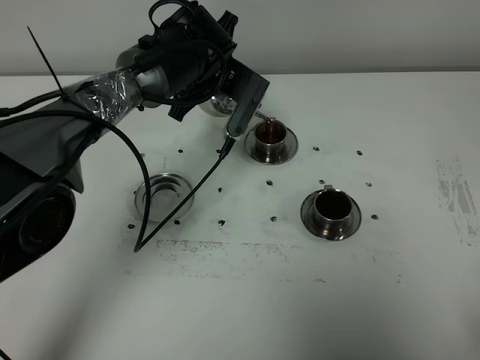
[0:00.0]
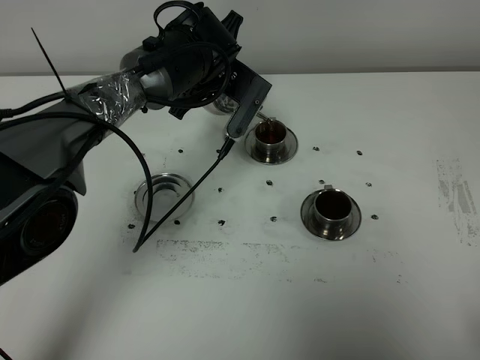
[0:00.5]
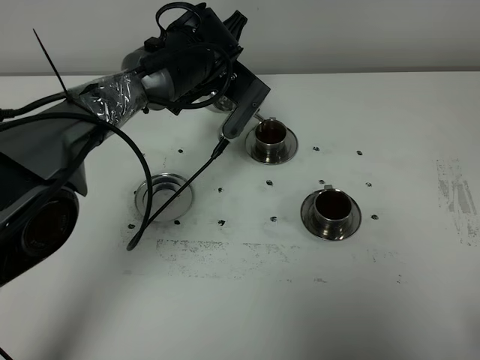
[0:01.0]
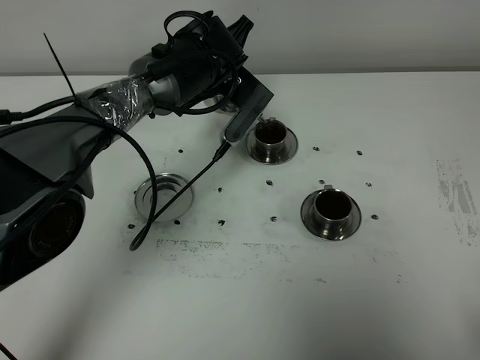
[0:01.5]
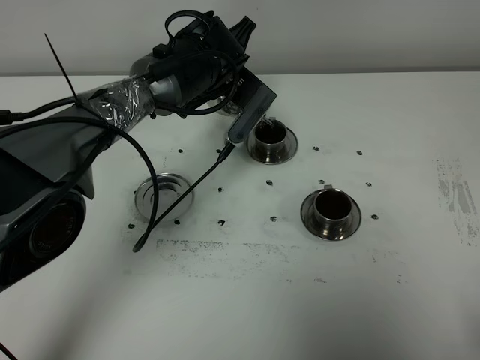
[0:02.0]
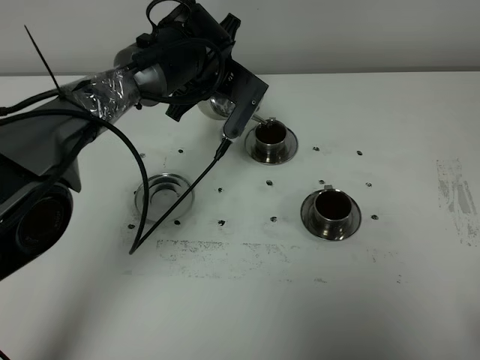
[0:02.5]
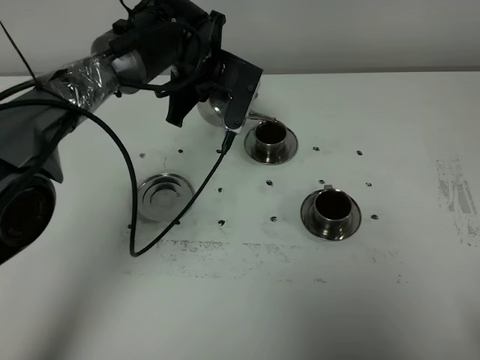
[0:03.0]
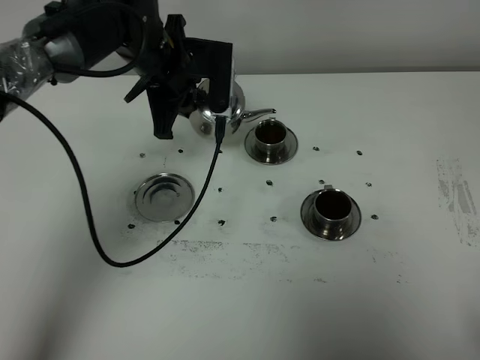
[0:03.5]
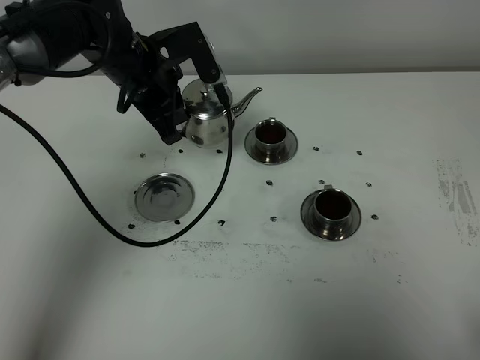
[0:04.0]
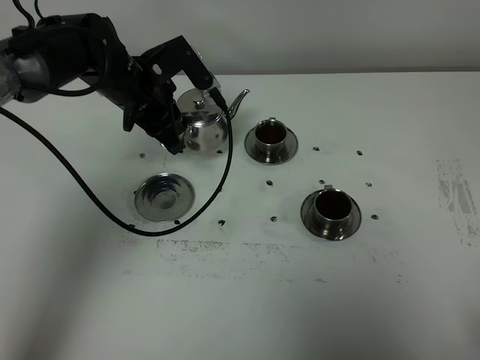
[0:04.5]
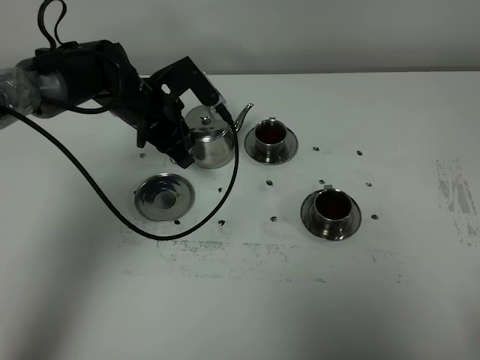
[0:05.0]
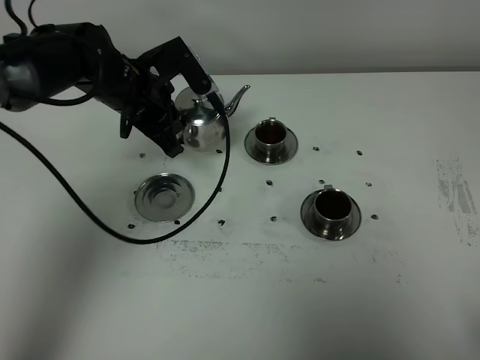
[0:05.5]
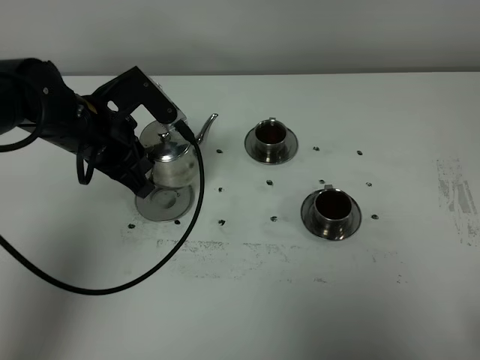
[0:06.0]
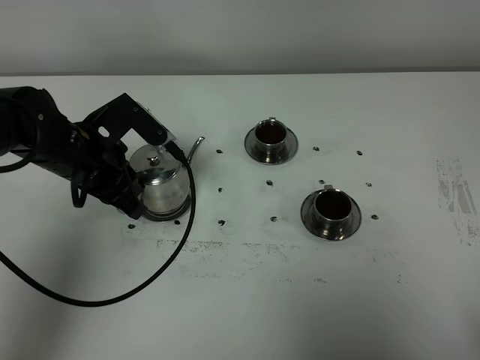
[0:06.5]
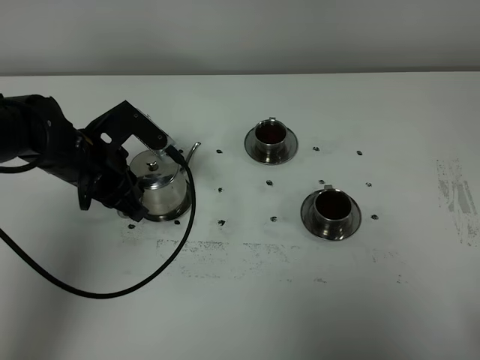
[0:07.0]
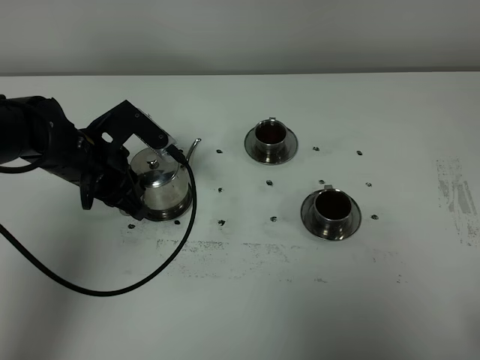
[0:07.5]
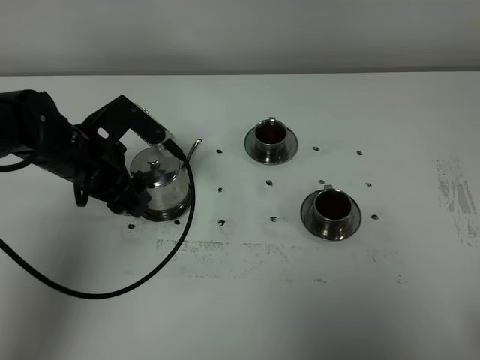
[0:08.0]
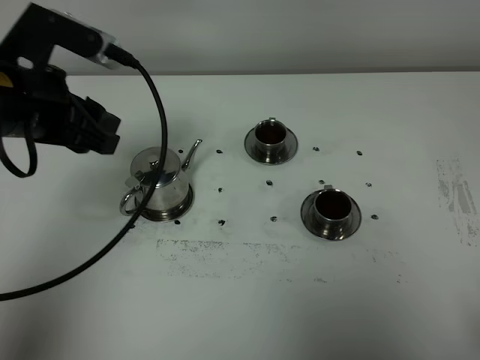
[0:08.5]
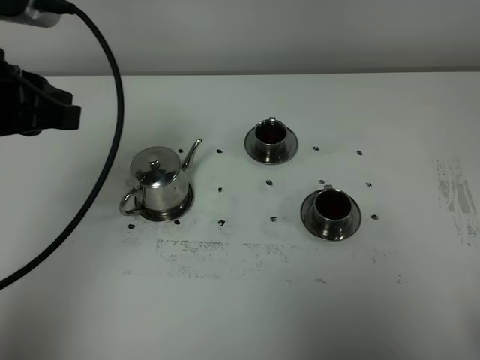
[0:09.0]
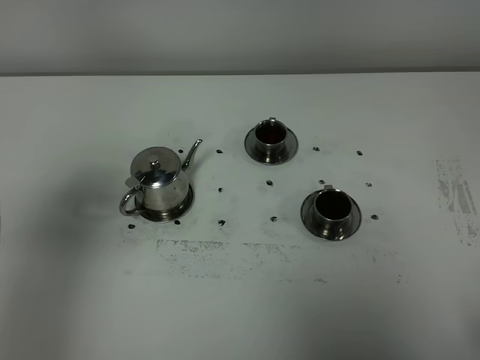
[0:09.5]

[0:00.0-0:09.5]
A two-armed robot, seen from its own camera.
Task of the whole recording: grasp the stainless steel teapot and pour the tea into the two stainless steel teacups one by one, put the stainless steel teapot back in its original place.
Step, 0:00.0 to 0:03.0: Pour tea into the teacup with the left gripper.
0:00.0 to 0:02.0: The grippers make only small movements.
0:02.0 to 0:04.0: The left gripper goes about 10 cm to the left.
0:05.5 to 0:07.5: The left gripper goes approximately 5 cm backward.
0:07.5 to 0:09.5: The left gripper shifts roughly 35 cm upward, backward and to the left, and opens, then closes again.

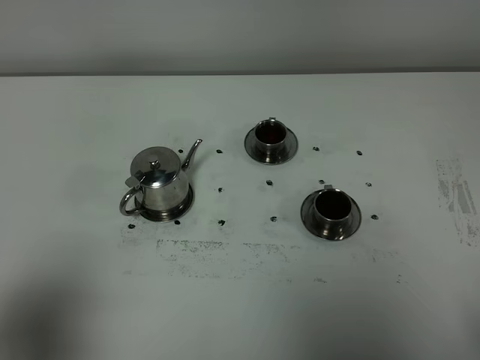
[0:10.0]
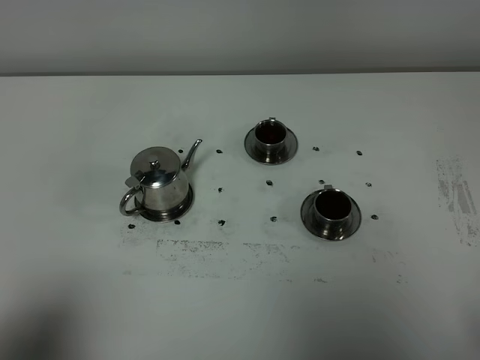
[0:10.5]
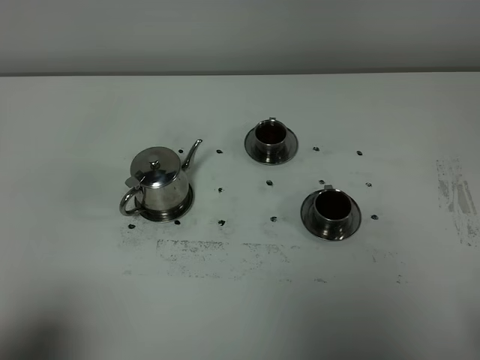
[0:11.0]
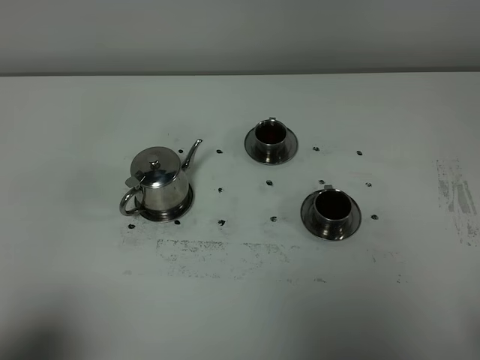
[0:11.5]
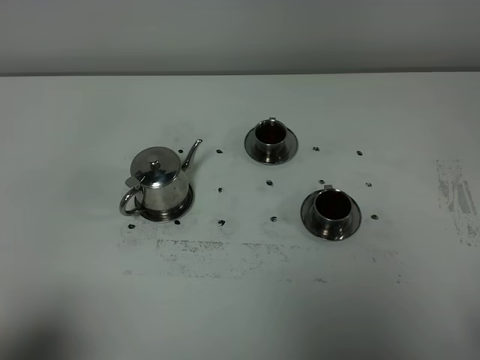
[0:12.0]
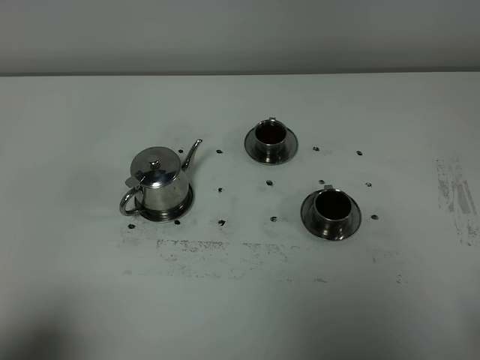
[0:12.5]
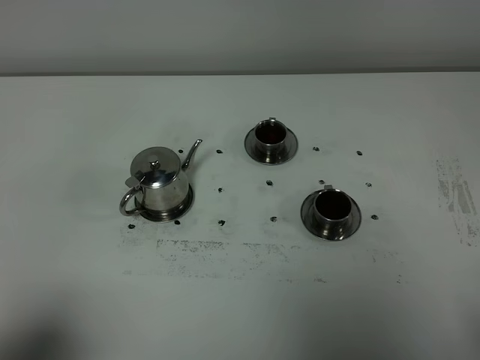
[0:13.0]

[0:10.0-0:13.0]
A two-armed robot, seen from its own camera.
Task of the whole recording: grasp the stainless steel teapot and pour the tea into the two stainless steel teacups one by one, put the stainless steel teapot back in its original place.
0:10.0 to 0:11.5: The left gripper heads downward, covering approximately 5 cm.
0:11.5 to 0:13.0: Both grippers stay about where they are.
